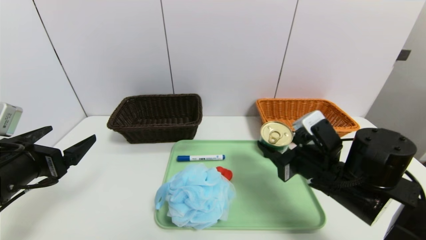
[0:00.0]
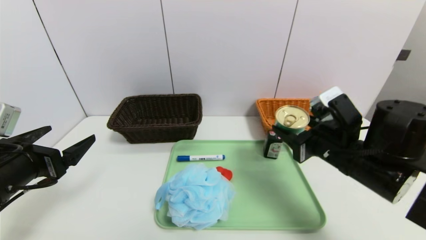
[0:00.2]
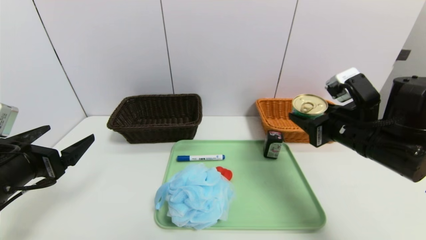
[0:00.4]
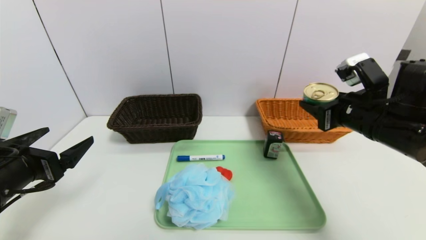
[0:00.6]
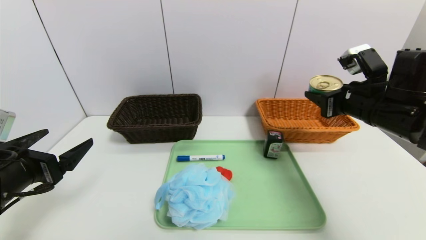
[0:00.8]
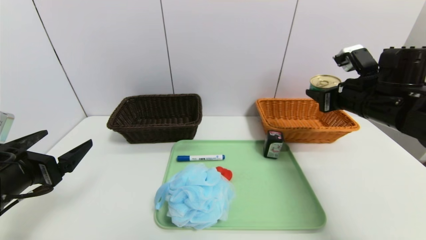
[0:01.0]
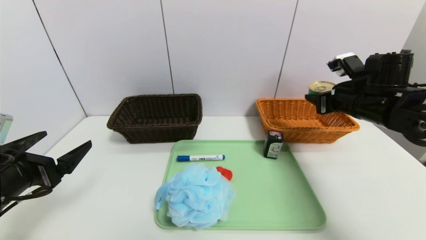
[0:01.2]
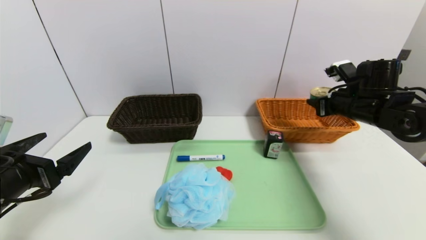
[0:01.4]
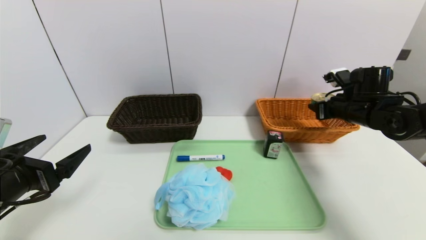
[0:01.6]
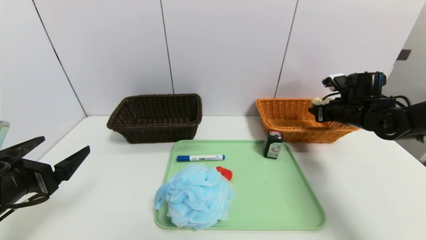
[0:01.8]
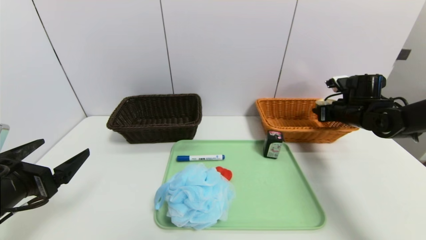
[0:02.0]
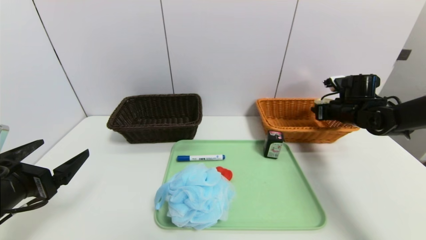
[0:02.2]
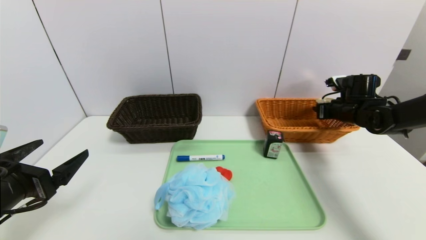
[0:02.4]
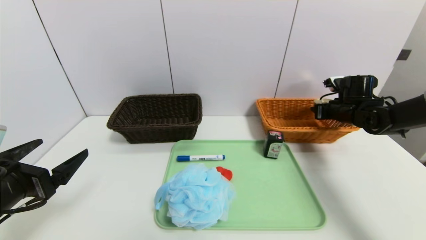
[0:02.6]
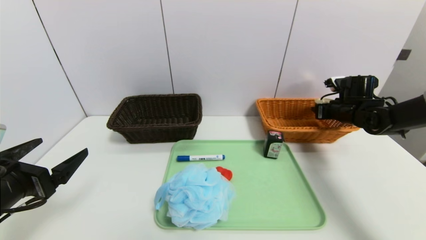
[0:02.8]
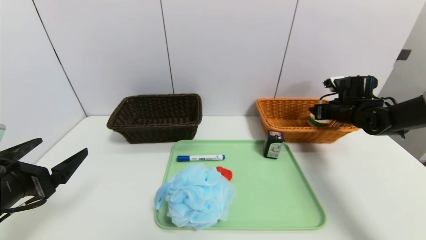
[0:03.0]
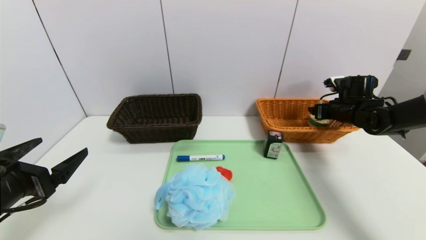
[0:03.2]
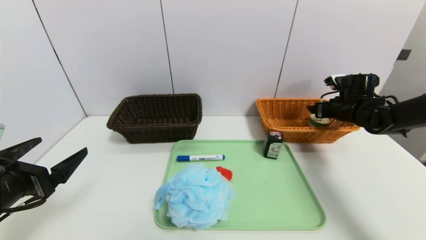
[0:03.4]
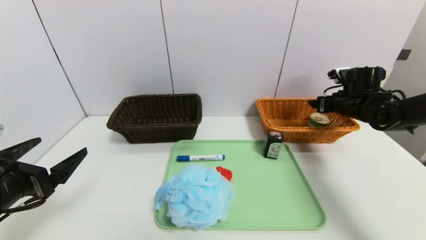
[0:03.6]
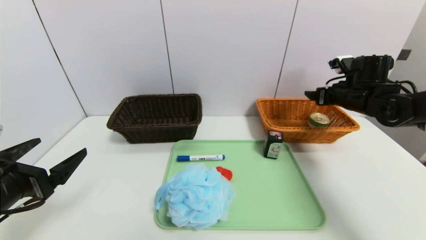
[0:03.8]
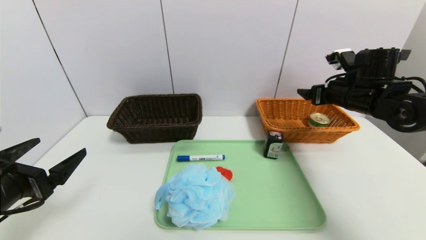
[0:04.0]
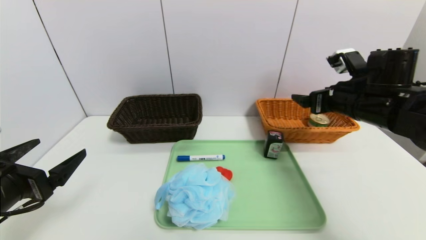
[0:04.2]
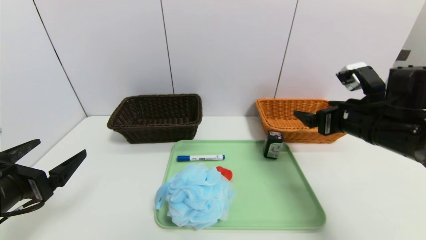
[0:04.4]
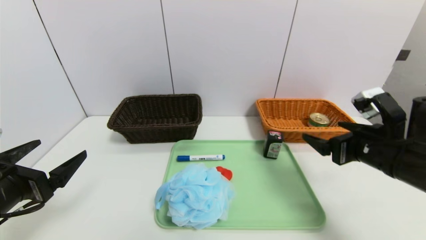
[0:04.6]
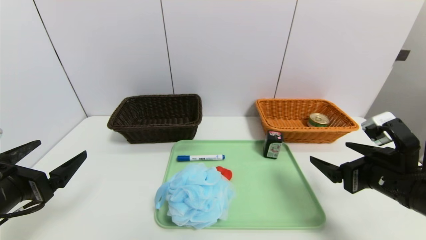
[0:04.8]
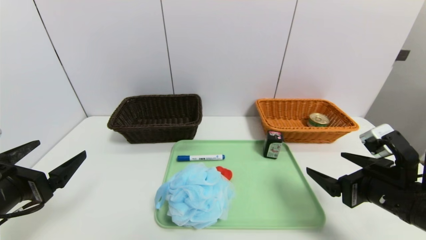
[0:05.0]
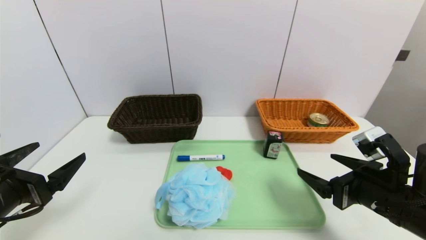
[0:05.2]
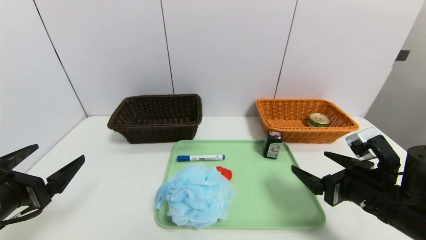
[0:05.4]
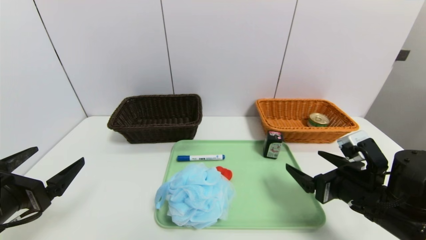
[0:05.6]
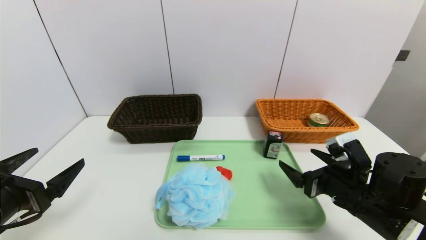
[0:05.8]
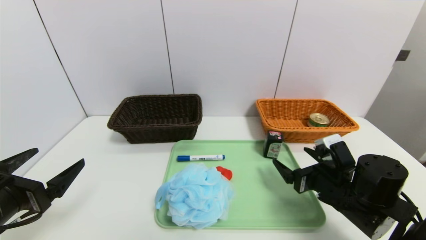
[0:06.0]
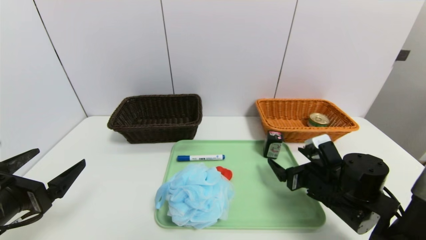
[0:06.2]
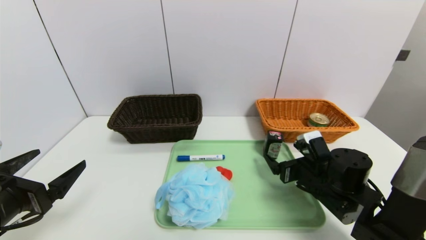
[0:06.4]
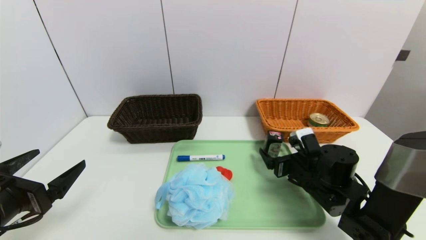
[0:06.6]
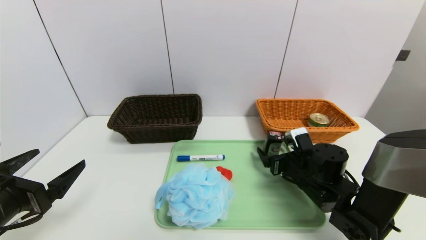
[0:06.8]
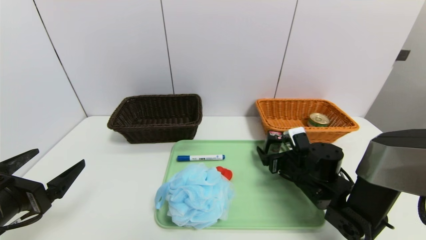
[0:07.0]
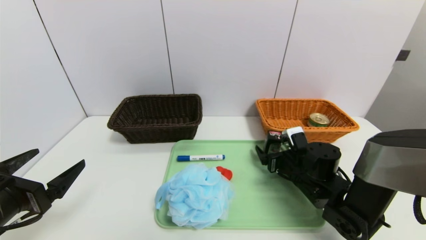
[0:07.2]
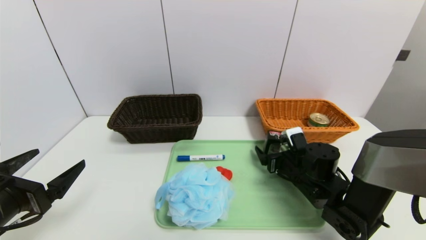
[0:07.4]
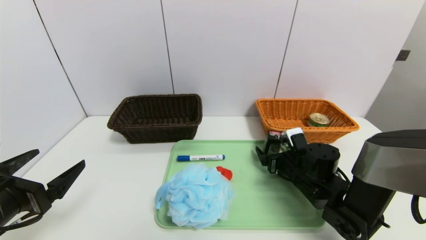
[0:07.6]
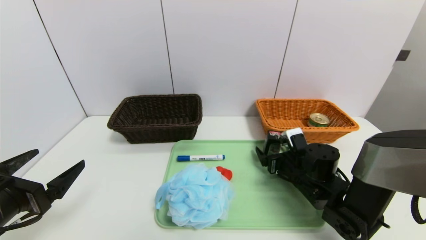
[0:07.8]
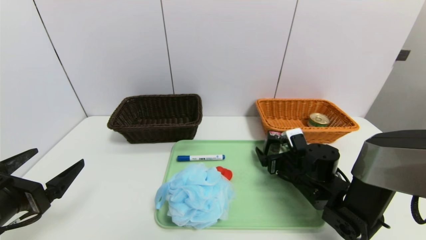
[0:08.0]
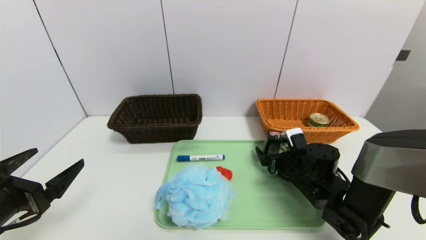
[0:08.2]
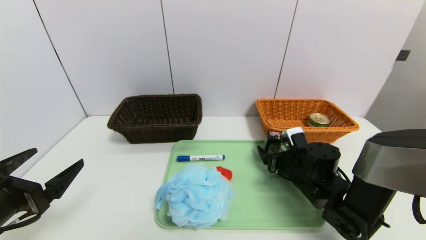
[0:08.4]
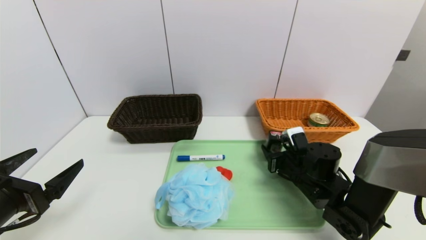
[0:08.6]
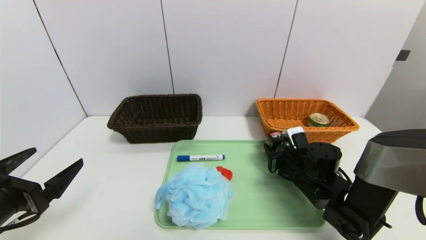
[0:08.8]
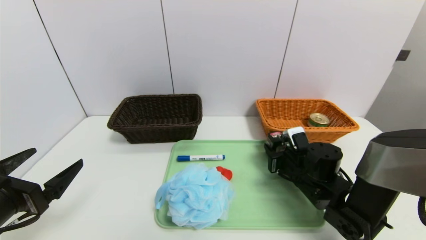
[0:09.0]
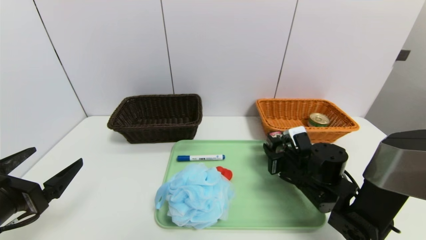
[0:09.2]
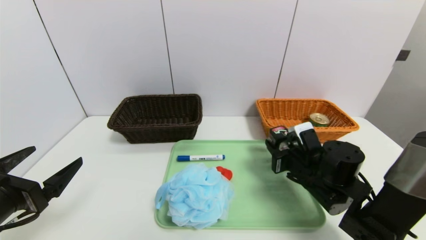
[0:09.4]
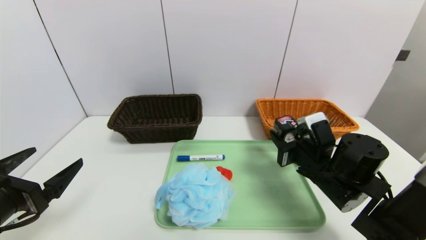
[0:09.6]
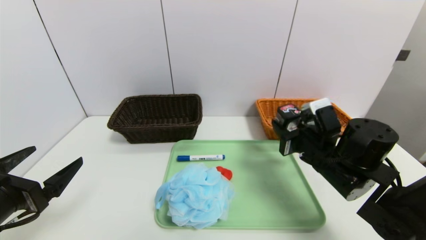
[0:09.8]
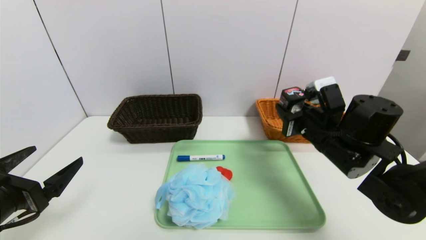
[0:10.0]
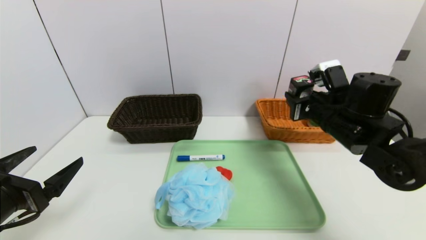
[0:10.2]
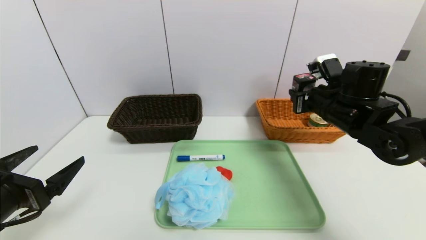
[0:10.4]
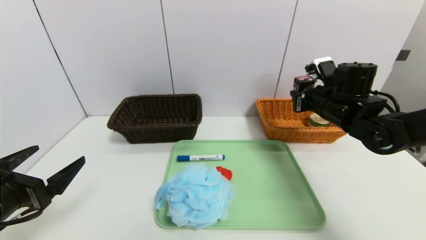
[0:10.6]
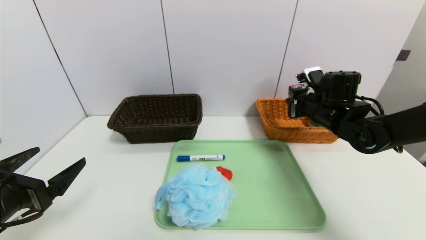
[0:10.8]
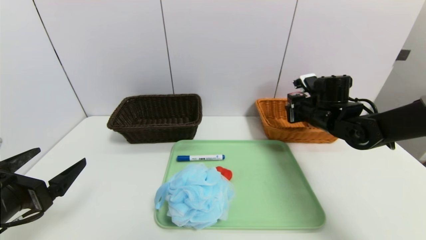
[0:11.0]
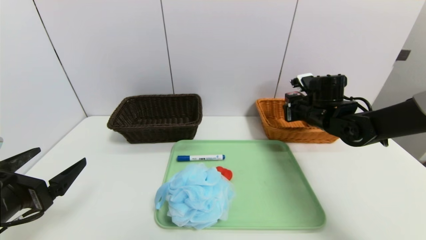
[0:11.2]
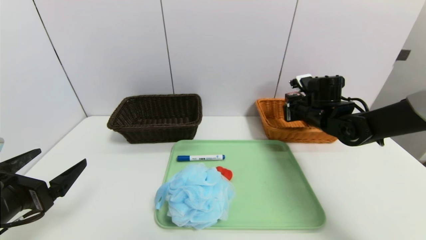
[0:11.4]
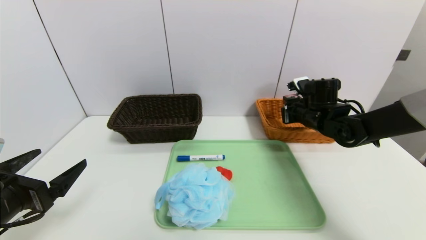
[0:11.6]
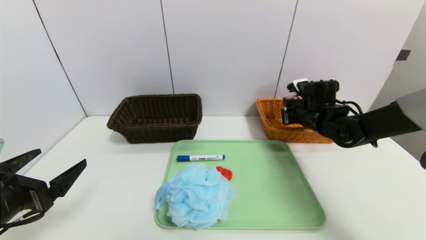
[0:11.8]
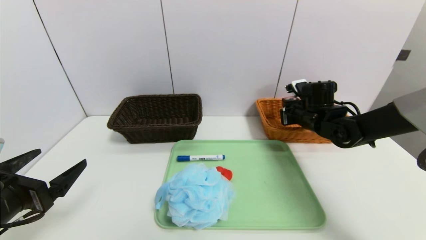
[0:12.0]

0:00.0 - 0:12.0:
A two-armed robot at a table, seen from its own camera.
Task of the whole recording: place the food in the right basket with the right gripper, and place the non food items in the left basket with the left gripper.
Step, 0:00.0 - 0:03.6: Grasp the tin and put it in the right basket.
0:00.0 - 0:01.6: The right gripper is displaced forward and to the right by approximately 20 cm.
0:01.6 - 0:03.0: The right gripper is displaced forward by roughly 5 cm.
0:03.0 - 0:04.4: The right gripper goes approximately 20 cm backward and to the left.
0:04.4 - 0:06.0: The right gripper goes approximately 15 cm downward.
0:06.0 - 0:07.6: The right gripper heads forward, covering about 5 cm.
0:07.6 - 0:09.0: The right gripper closes its fingers.
0:09.0 - 0:10.4: The right gripper shifts about 15 cm upward.
0:10.4 - 0:12.0: The right gripper heads forward and downward, covering some 10 cm.

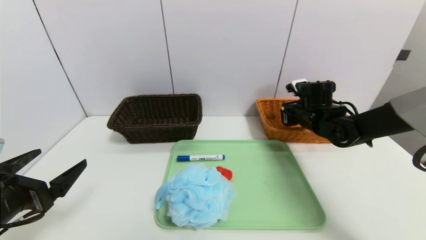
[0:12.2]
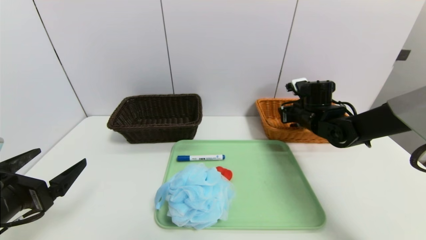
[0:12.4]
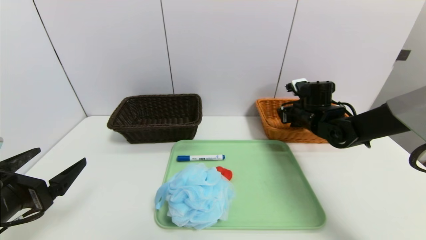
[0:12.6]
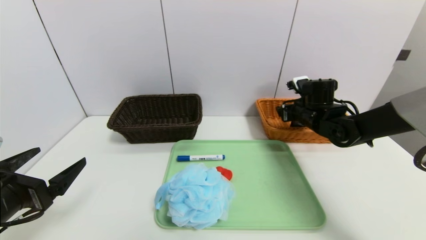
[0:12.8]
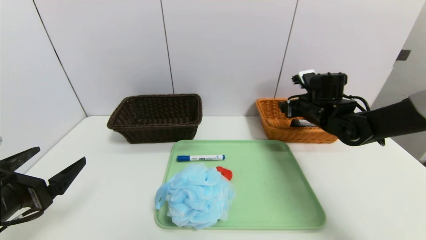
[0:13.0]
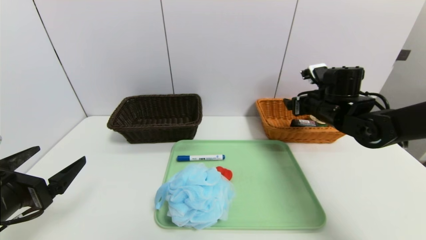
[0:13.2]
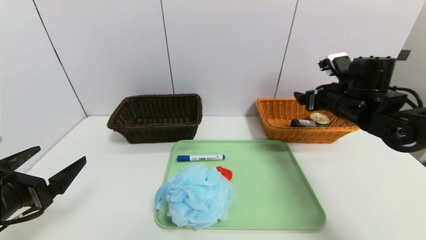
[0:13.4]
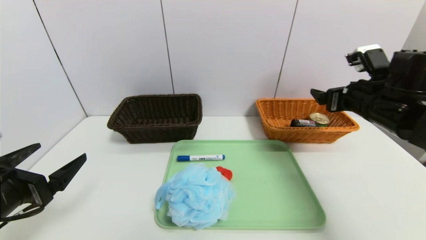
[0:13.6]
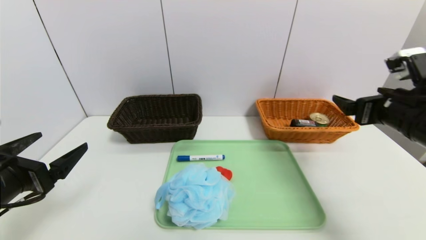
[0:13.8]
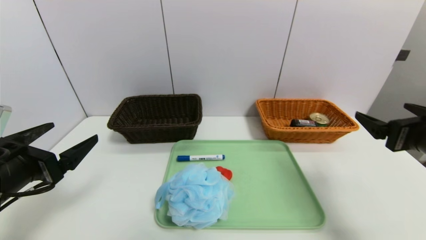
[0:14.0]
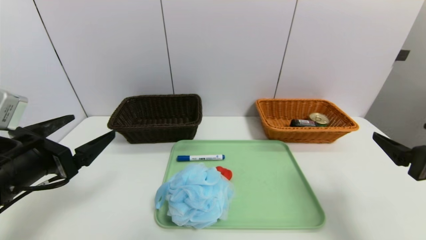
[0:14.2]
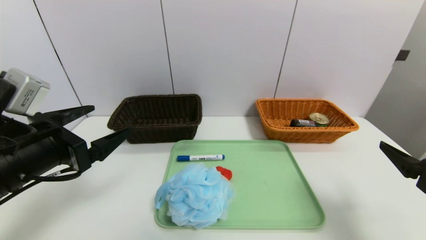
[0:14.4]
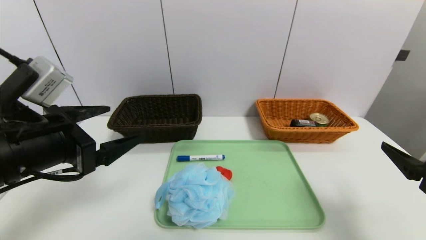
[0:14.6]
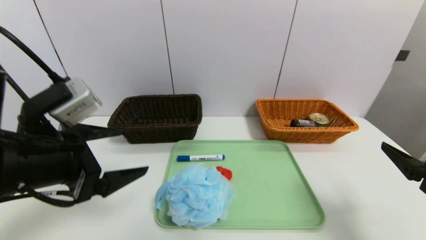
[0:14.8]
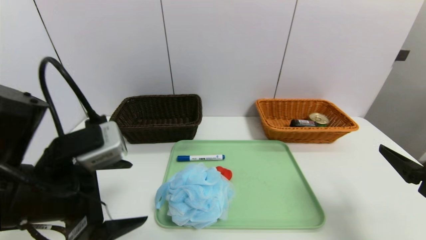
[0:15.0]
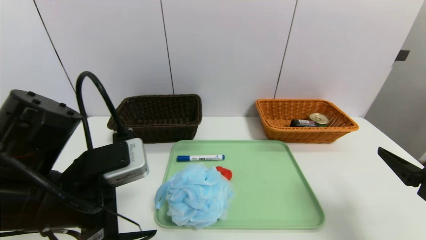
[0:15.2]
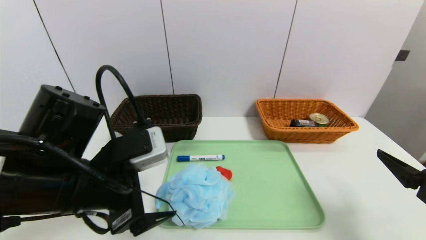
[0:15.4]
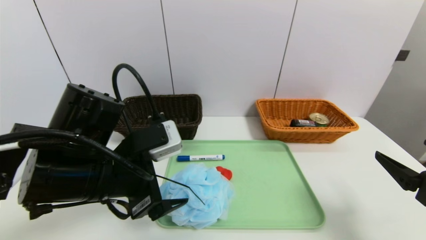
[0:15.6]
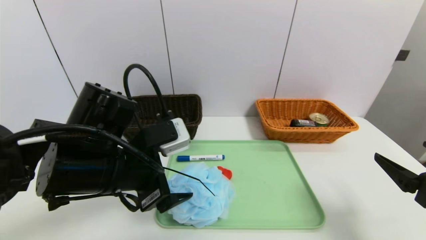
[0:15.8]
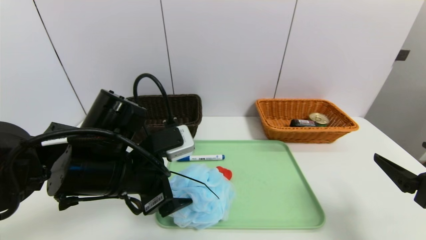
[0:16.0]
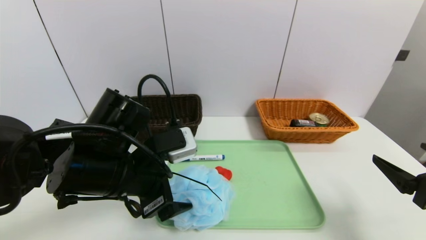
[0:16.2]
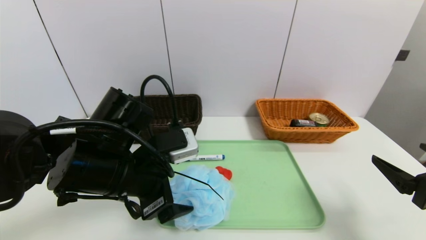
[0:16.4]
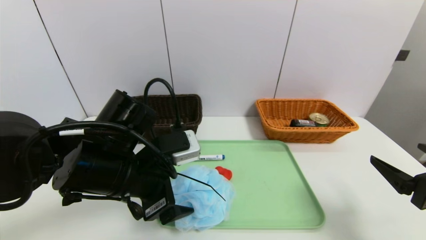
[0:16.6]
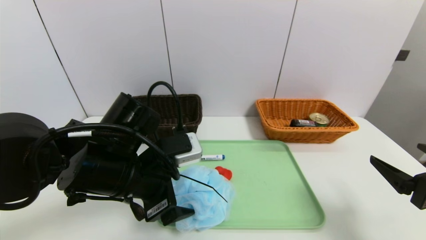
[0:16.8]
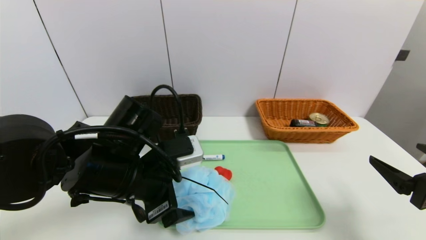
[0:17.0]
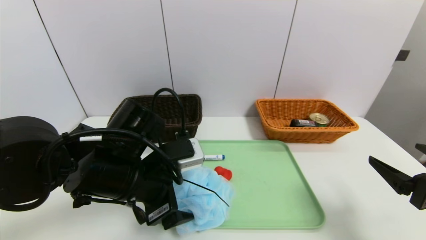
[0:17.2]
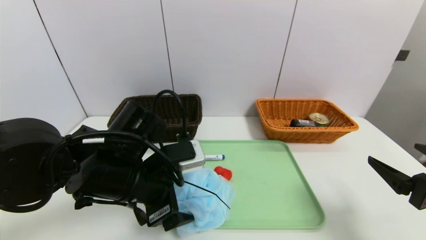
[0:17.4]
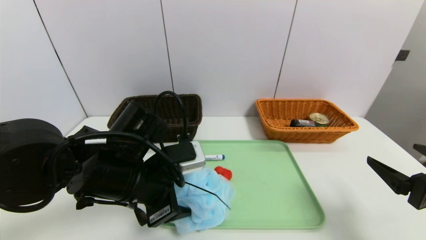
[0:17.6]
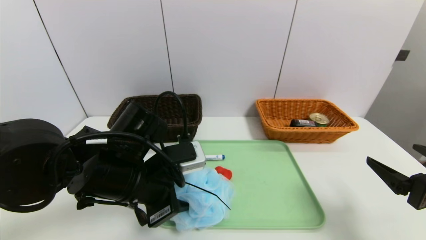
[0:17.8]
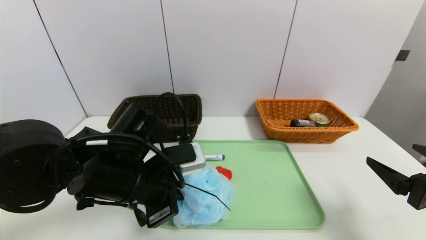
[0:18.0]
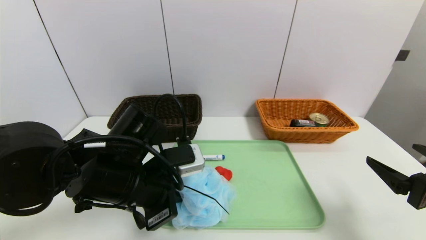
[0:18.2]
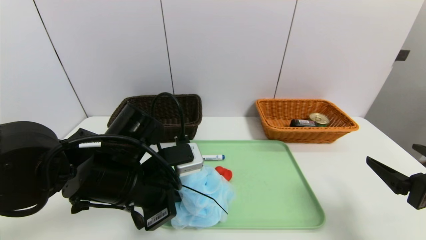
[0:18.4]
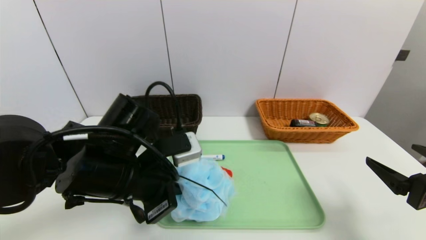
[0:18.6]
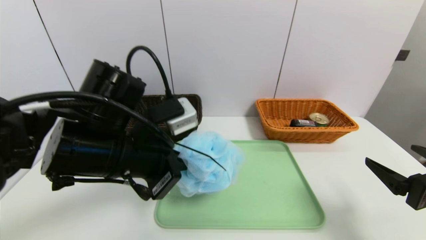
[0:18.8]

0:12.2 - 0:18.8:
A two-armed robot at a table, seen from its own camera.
Task of the whole recording: place the food in the right basket with the right gripper, and place the non food items in the left basket with the left gripper.
0:12.2 - 0:13.8: The right gripper shifts about 20 cm backward and upward, and opens.
0:13.8 - 0:15.4: The left gripper travels to the right by about 15 cm. The right gripper goes approximately 10 cm backward.
0:15.4 - 0:17.2: The left gripper ends up roughly 5 cm from where it was.
0:17.2 - 0:18.8: The left gripper shifts about 5 cm upward, and closes its fingers.
